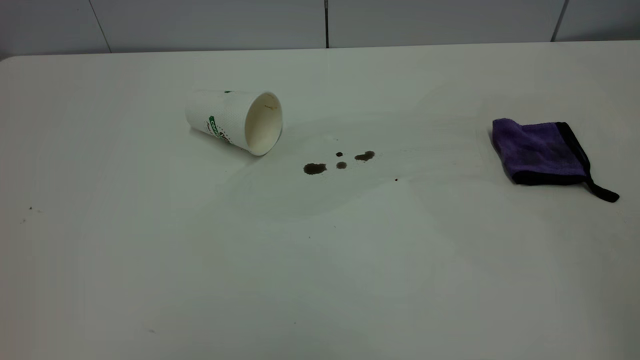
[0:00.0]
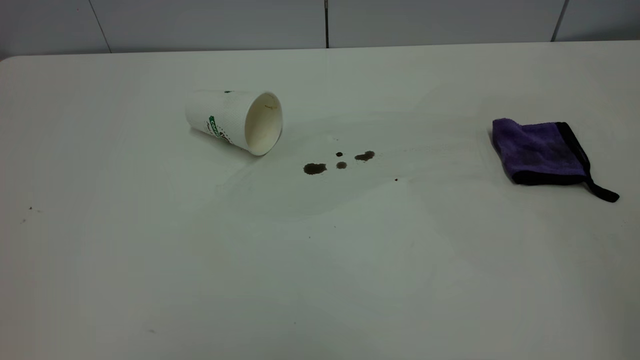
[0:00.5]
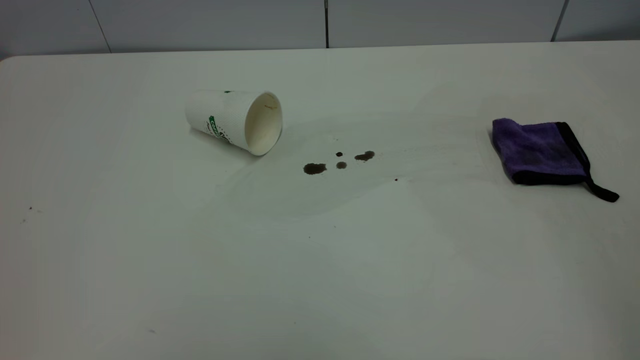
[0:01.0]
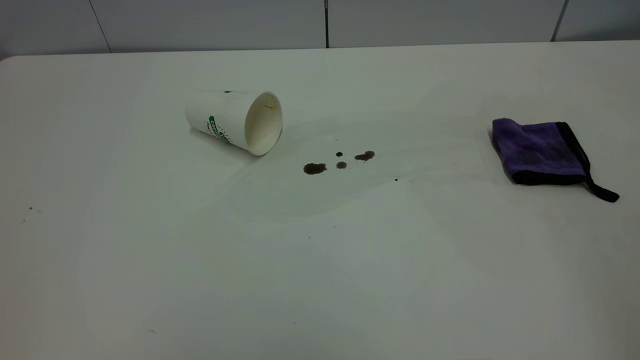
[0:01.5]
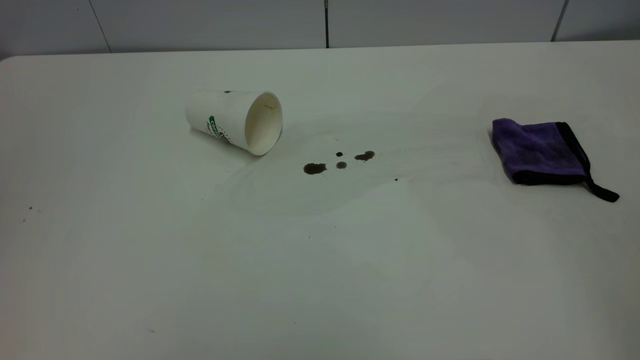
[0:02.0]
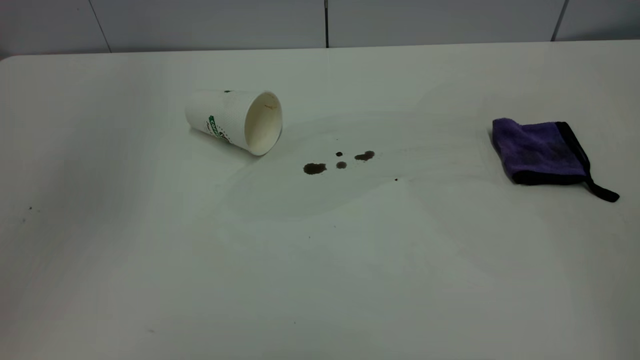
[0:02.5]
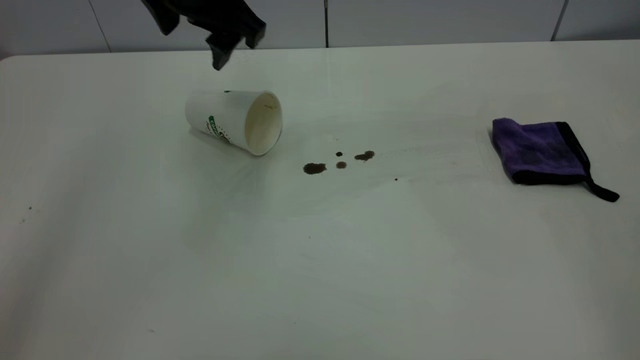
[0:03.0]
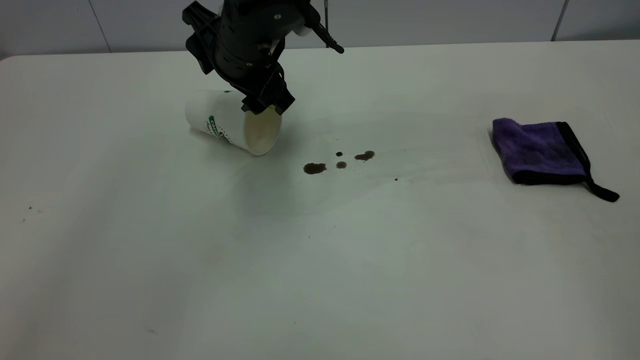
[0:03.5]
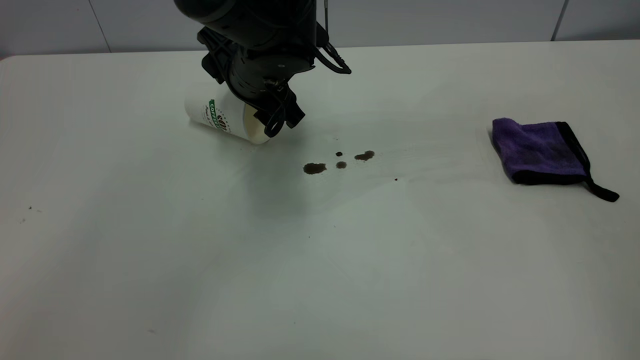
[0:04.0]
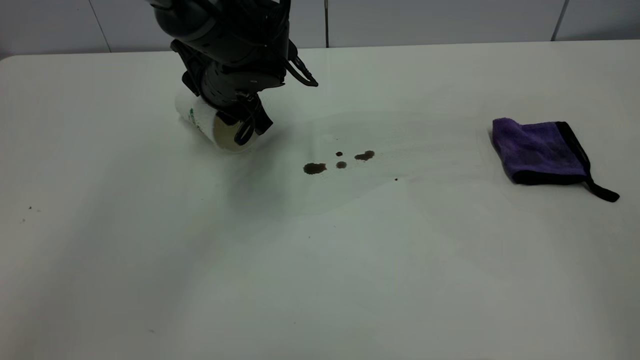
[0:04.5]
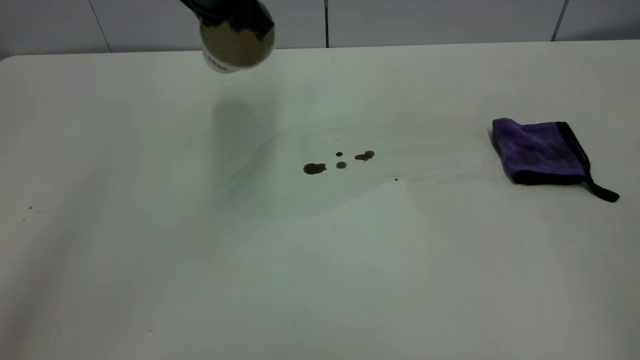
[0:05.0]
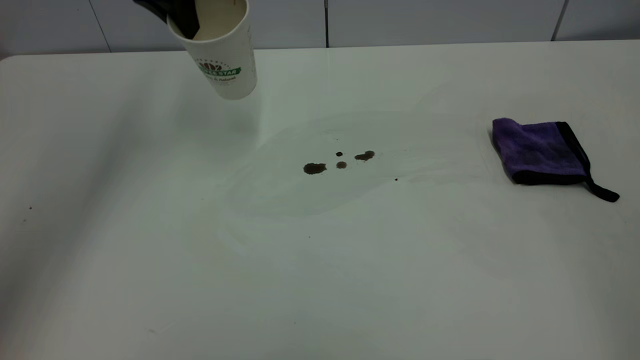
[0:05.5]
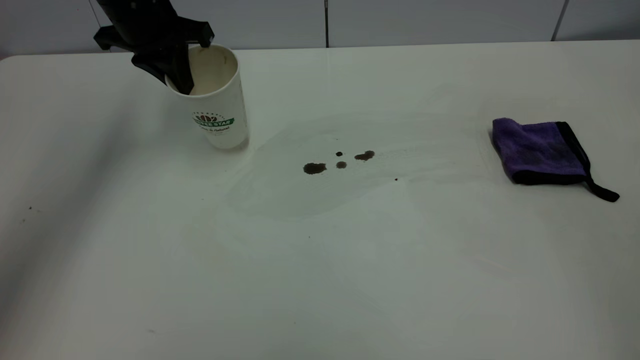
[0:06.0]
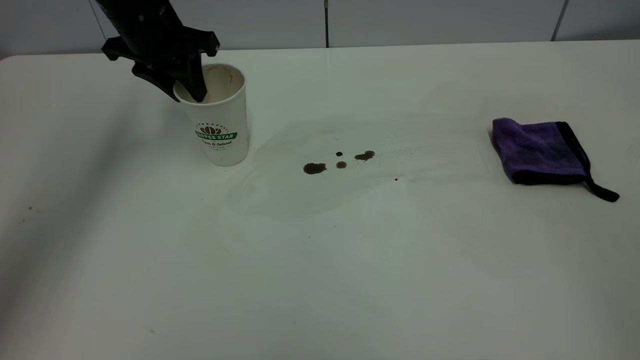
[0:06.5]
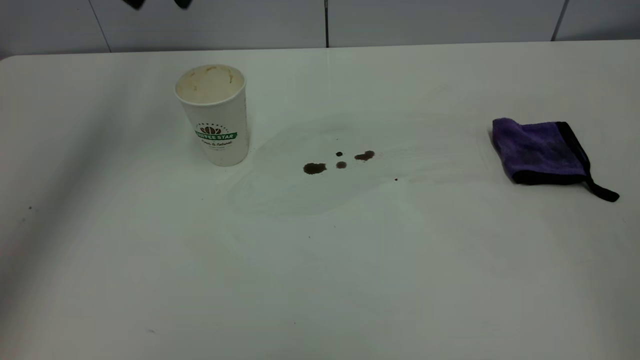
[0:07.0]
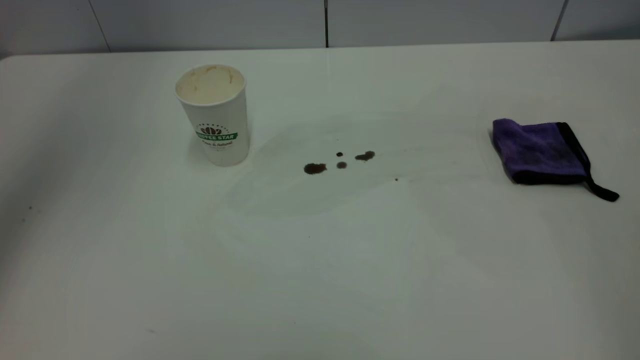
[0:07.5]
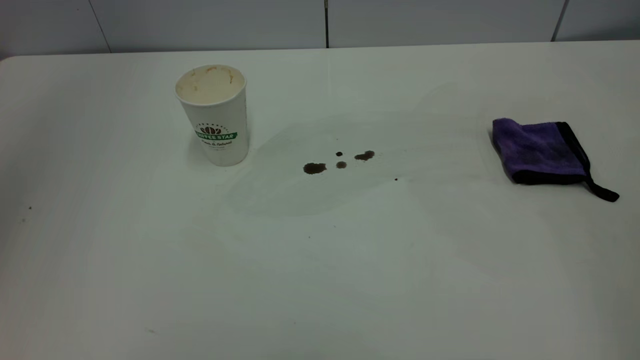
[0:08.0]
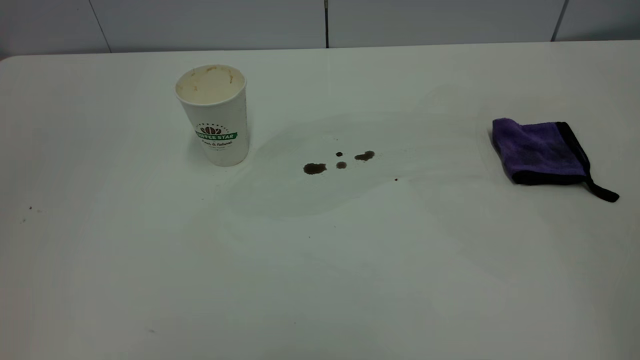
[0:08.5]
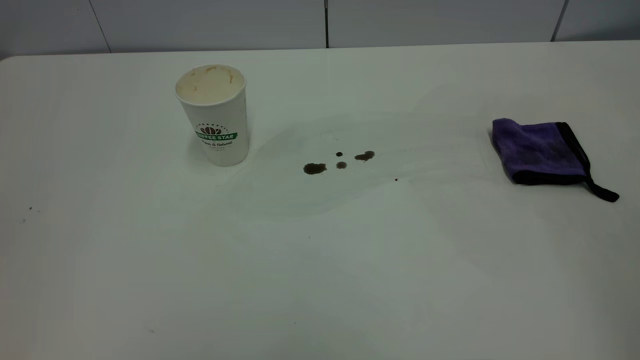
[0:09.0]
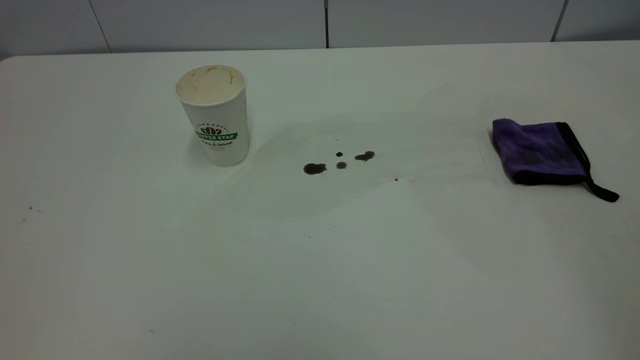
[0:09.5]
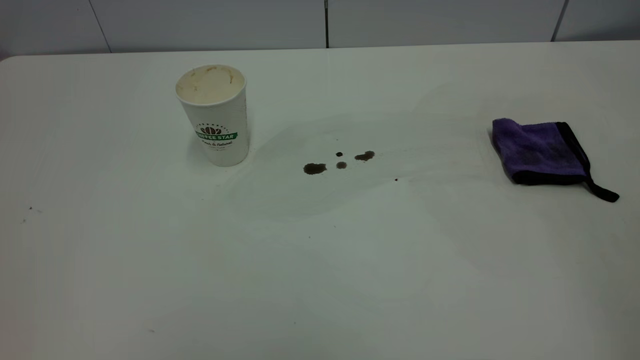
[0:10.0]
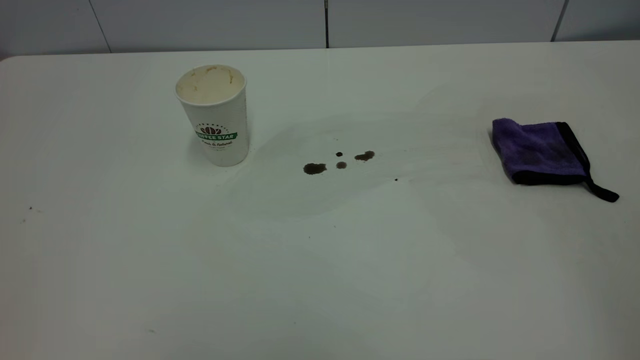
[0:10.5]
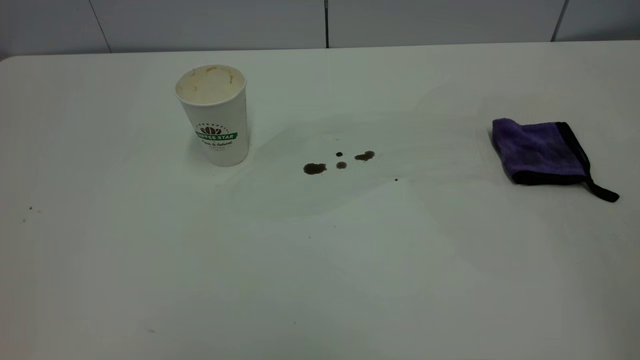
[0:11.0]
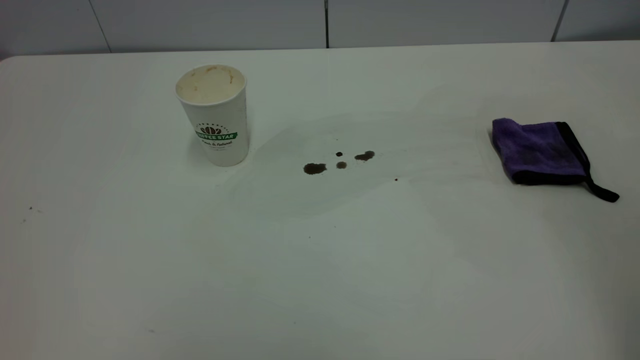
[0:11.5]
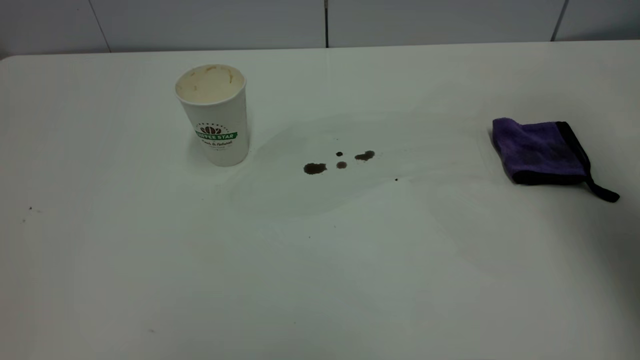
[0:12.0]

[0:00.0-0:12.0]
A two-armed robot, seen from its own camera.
Task of the whole recording: the left gripper pick up the fallen cup and place it upright, the right gripper grasp the purple rag and wipe the coffee stain on the table, the right gripper put the purple rag back in its original position.
Step, 0:00.0 to 0:06.5: Stand the paper cup upright.
0:02.0 to 0:04.0: The left gripper travels downward, forward and to the right by about 50 cm.
0:04.0 to 0:06.0: The left gripper is displaced to the left and forward by about 15 cm, and closes up.
0:06.0 to 0:08.0: The left gripper goes roughly 40 cm upward and backward, and opens up.
0:10.0 to 0:12.0: The right gripper goes about 30 cm forward.

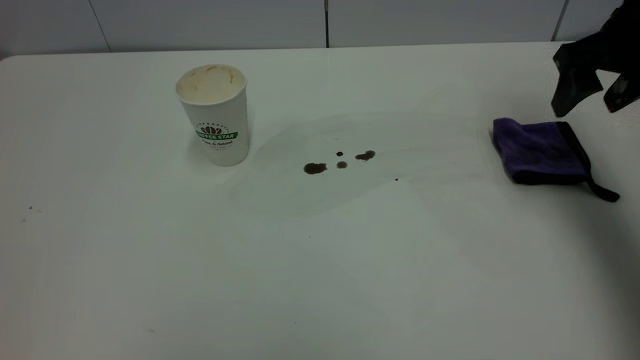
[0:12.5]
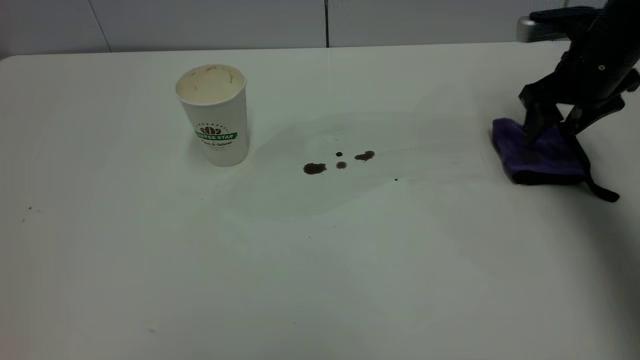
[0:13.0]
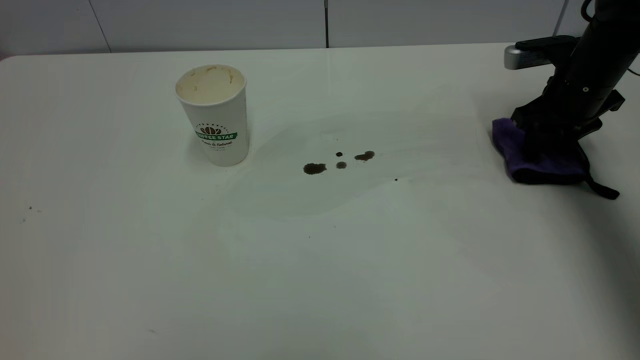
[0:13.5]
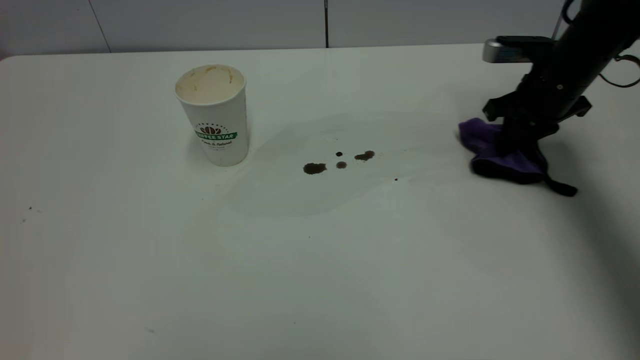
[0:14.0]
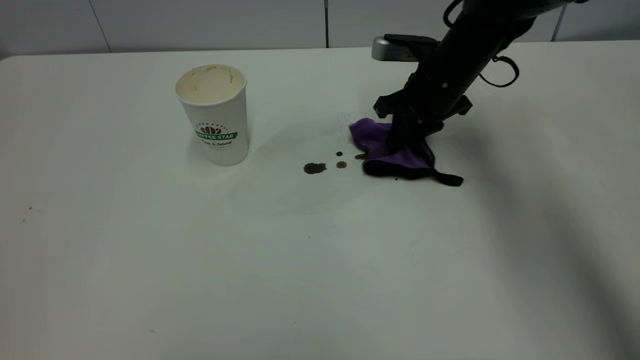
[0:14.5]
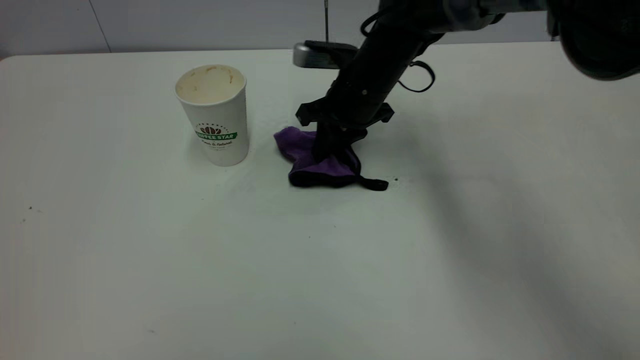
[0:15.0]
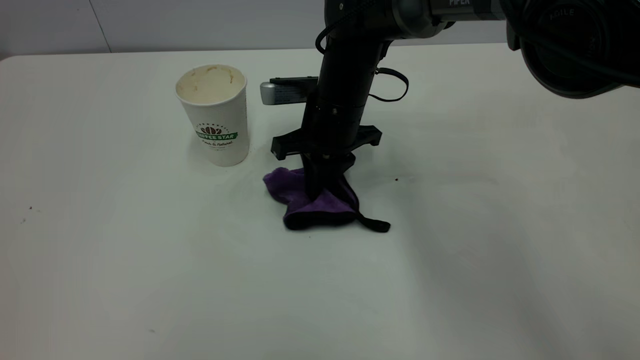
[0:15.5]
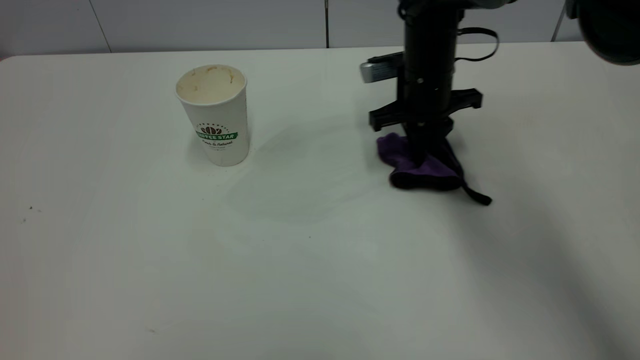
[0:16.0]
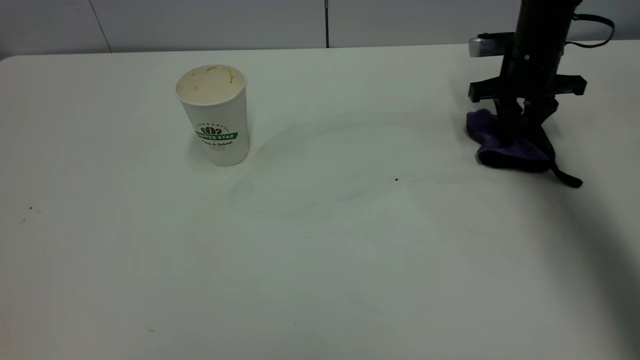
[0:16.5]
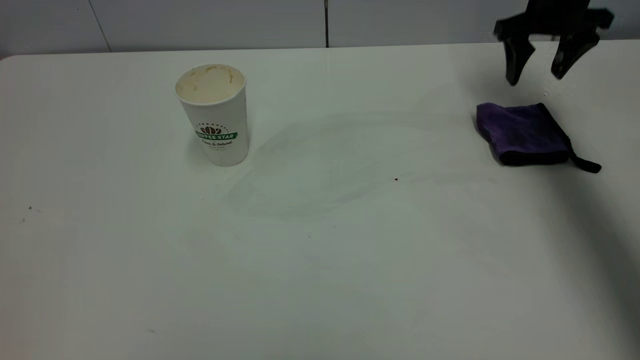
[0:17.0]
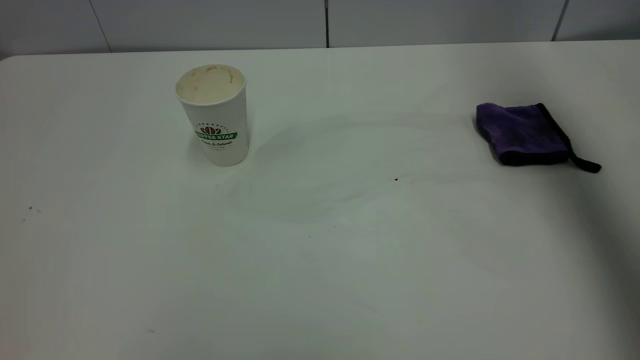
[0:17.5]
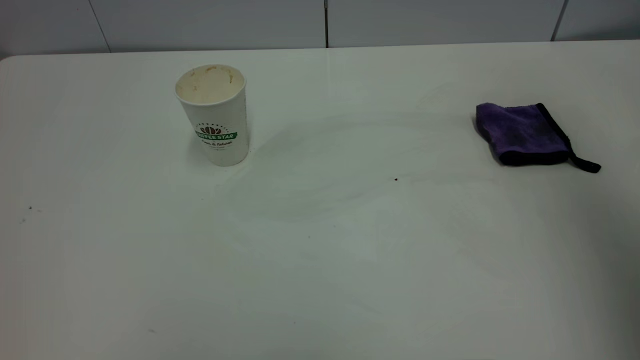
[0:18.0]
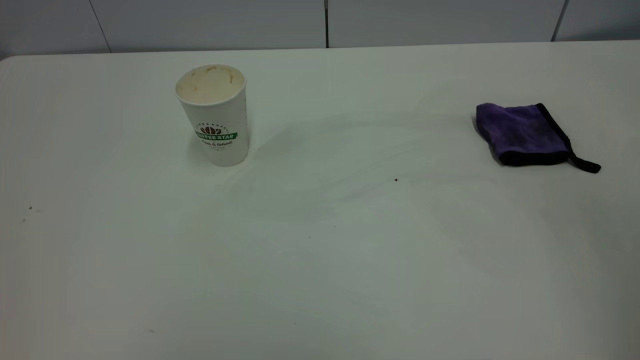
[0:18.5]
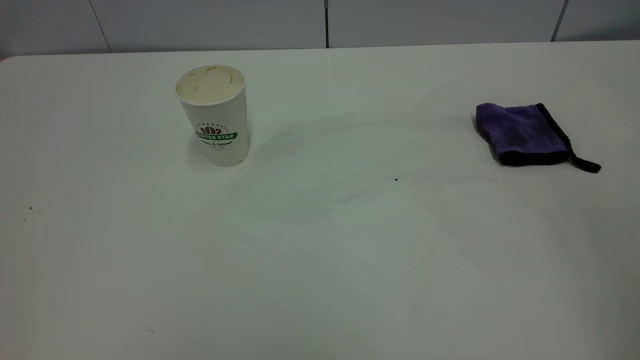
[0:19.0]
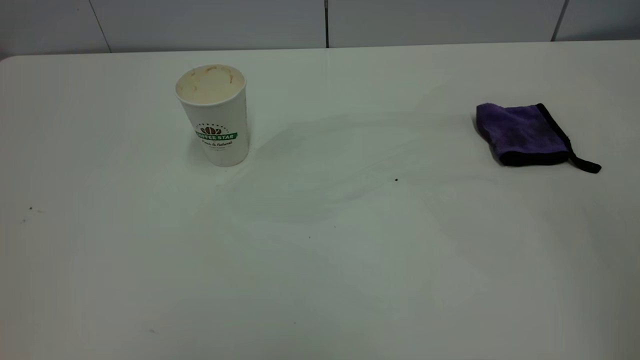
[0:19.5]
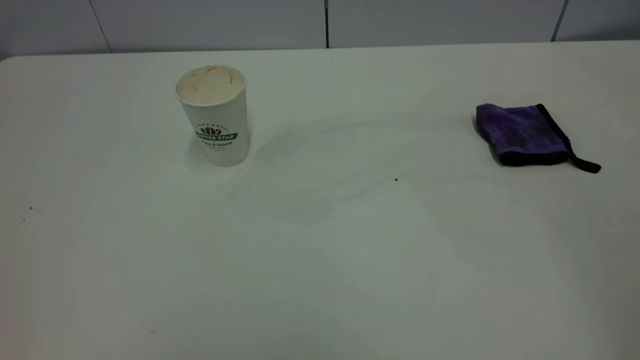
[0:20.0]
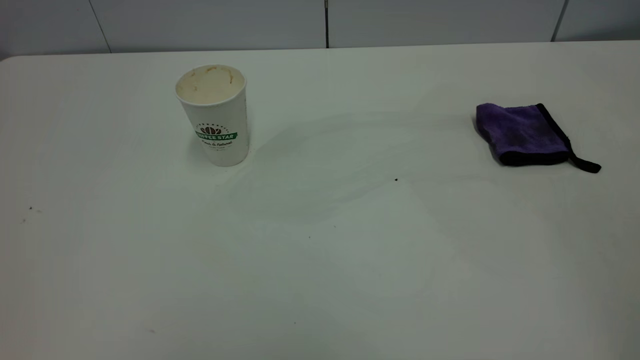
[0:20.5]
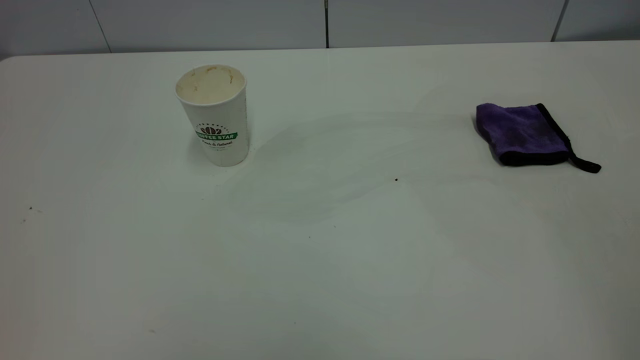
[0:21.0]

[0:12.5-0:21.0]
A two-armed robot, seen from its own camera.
Task of the whole recording: the left gripper pick up the fallen cup and place it upright, the right gripper grasp the purple rag and wipe the coffee stain on the table, the right gripper put the purple rag back in its original position.
Step, 0:12.5 to 0:16.5: Wipe the stains off the table with a rag.
0:12.5 to 0:14.5: The right gripper is displaced to the left, downward and forward by about 20 cm, and closes its fingers.
0:14.5 to 0:16.5: The right gripper shifts approximately 15 cm to the right, and opens.
0:16.5 to 0:19.0: The right gripper travels backward and upward by approximately 50 cm, and opens up.
